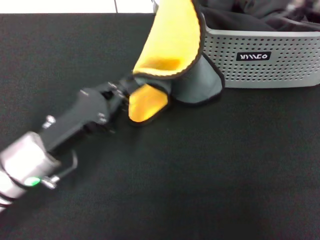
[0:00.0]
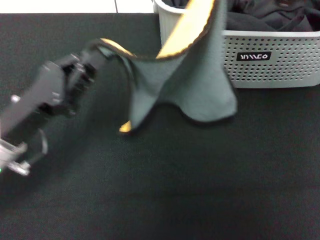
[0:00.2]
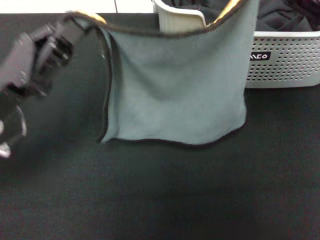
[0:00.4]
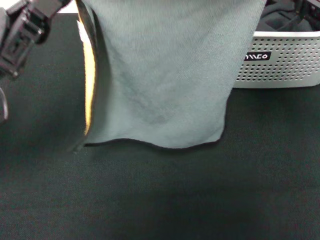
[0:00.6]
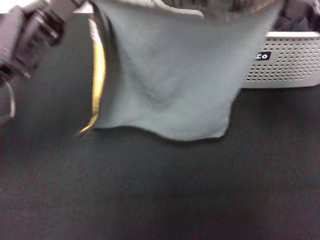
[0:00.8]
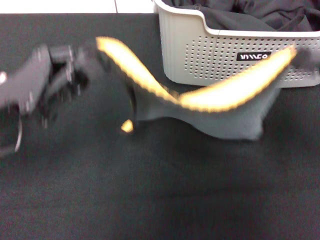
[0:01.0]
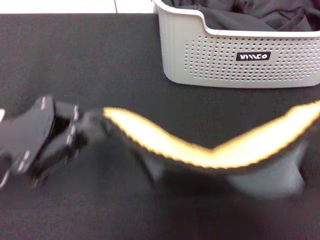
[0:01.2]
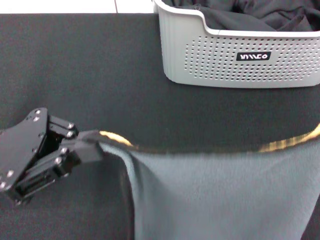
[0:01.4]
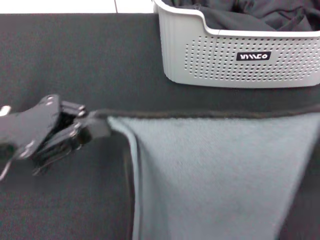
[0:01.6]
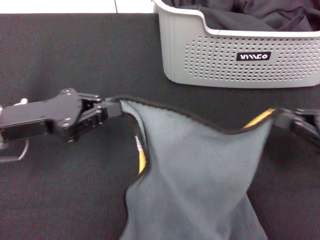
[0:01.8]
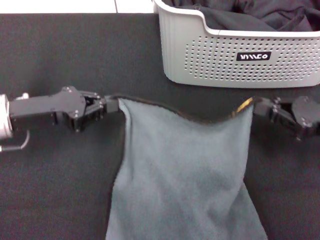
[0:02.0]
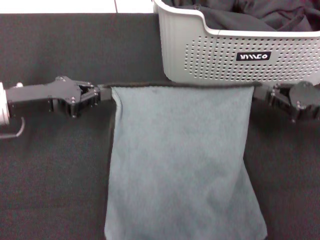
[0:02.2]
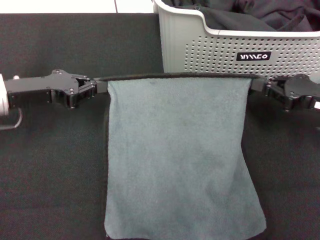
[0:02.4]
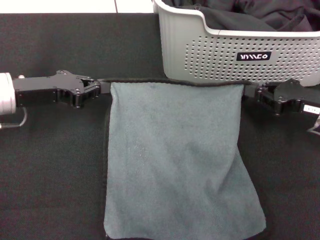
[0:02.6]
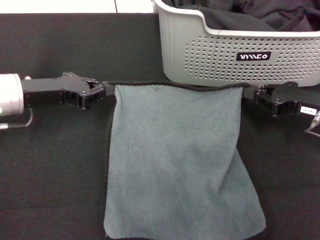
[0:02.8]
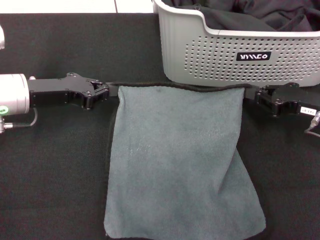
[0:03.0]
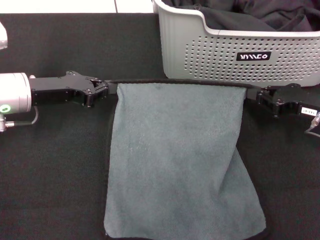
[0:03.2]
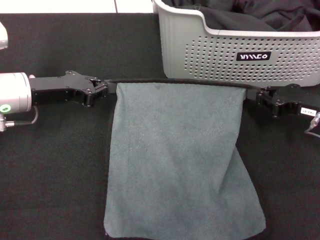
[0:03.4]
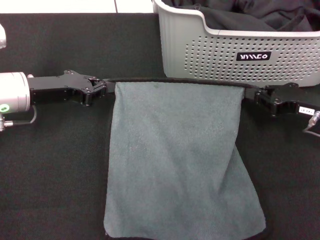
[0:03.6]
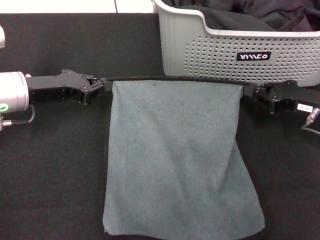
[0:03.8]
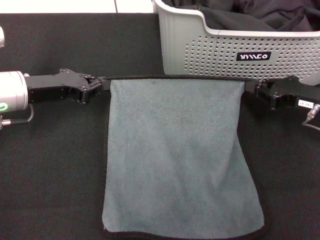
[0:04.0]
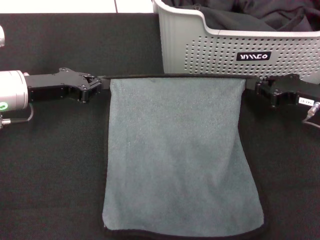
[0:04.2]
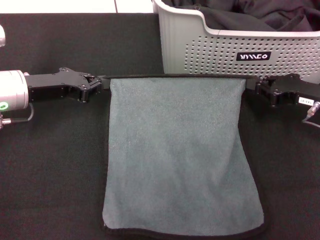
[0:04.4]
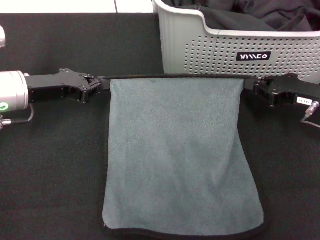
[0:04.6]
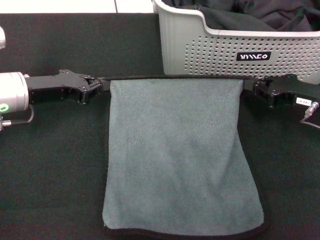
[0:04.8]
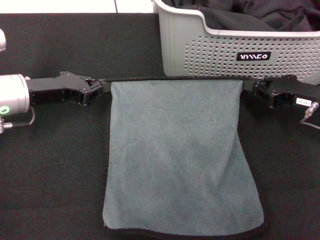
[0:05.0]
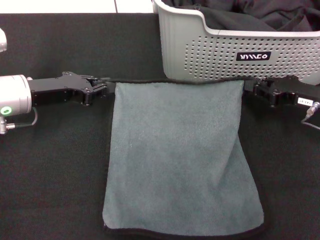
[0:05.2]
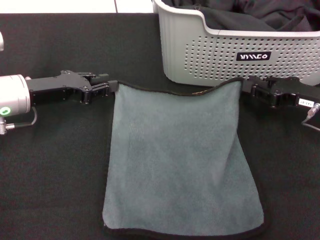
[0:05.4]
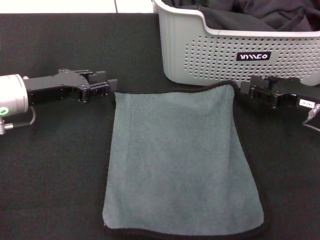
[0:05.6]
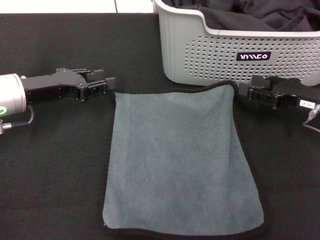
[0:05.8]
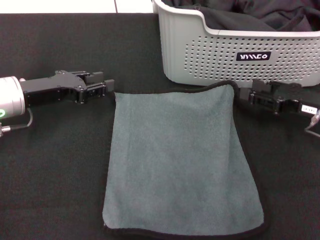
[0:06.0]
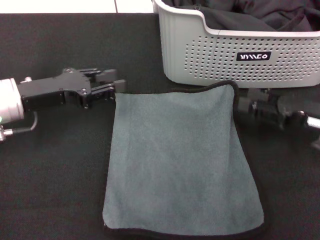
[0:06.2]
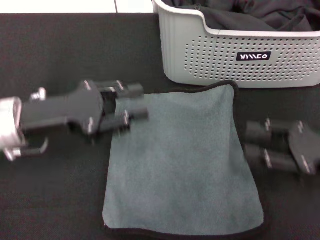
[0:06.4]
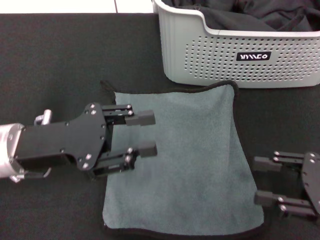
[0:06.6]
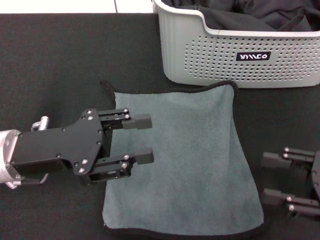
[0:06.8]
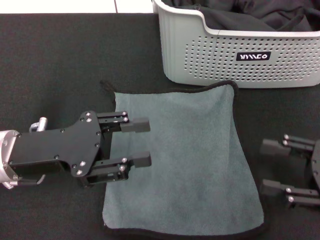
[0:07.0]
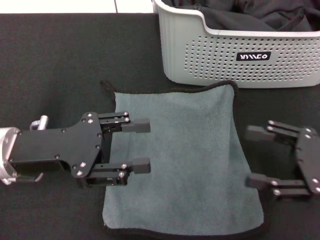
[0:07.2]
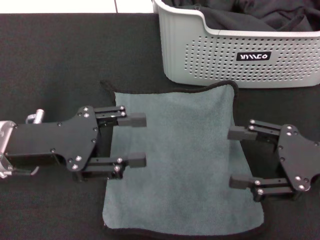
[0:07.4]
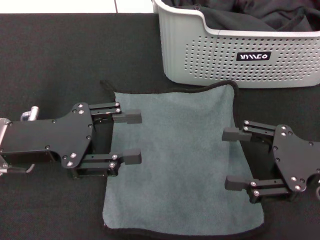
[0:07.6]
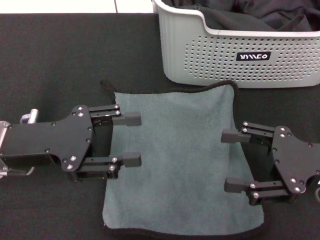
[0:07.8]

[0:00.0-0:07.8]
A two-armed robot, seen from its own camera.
Task of the whole recording: pick up the towel from the storage box and lay it flat on the black tablecloth.
Step, 0:00.0 to 0:05.6: Spread the towel flat with the right gripper.
0:00.0 to 0:01.6: The right gripper travels backward, to the right and downward by approximately 25 cm. Meanwhile the left gripper moves upward and to the left, approximately 10 cm.
0:01.6 to 0:03.2: The left gripper goes roughly 10 cm forward. Meanwhile the right gripper travels forward and downward by roughly 15 cm.
0:03.2 to 0:04.6: The grippers move only a little.
0:04.6 to 0:06.2: The right gripper opens up, while the left gripper opens up.
0:06.2 to 0:07.8: Both grippers travel together backward, about 5 cm.
